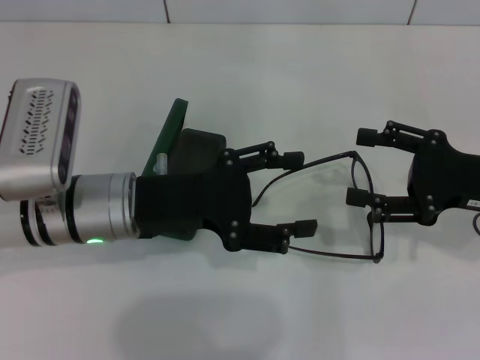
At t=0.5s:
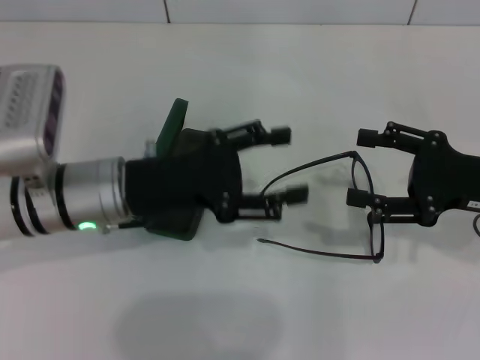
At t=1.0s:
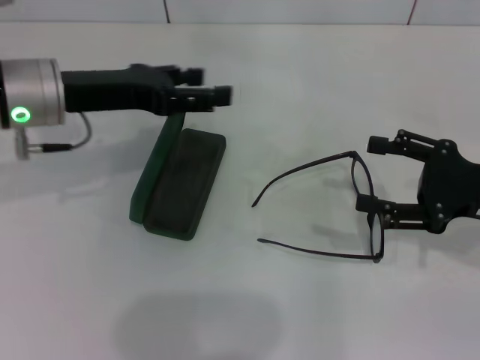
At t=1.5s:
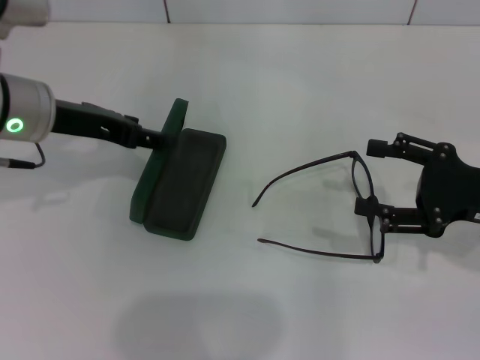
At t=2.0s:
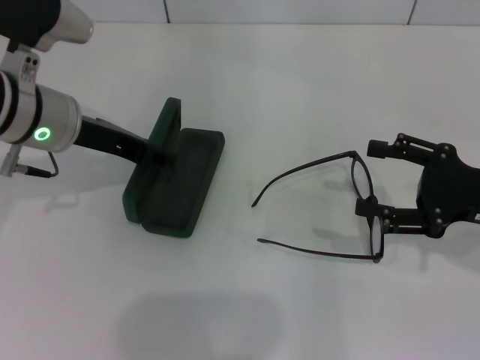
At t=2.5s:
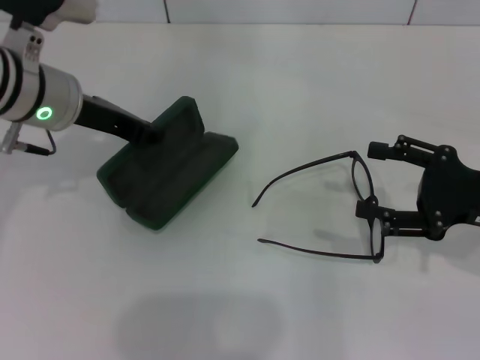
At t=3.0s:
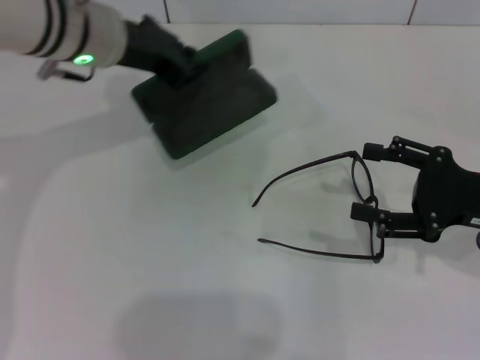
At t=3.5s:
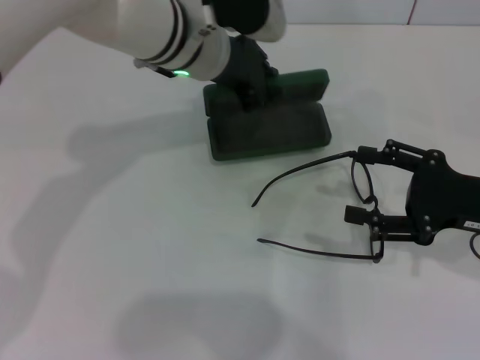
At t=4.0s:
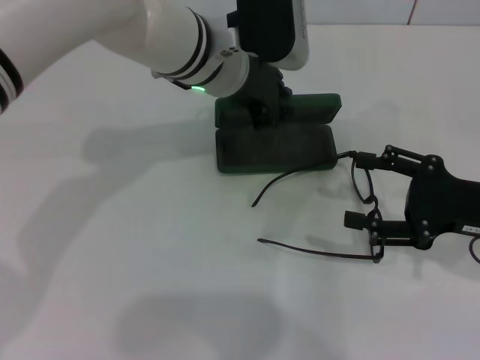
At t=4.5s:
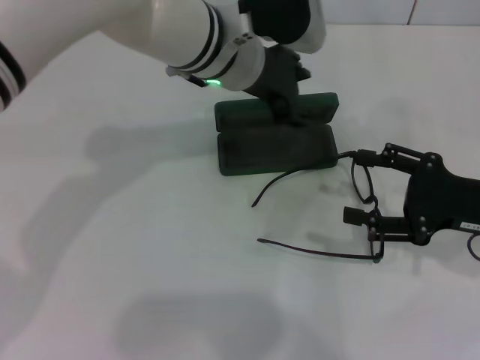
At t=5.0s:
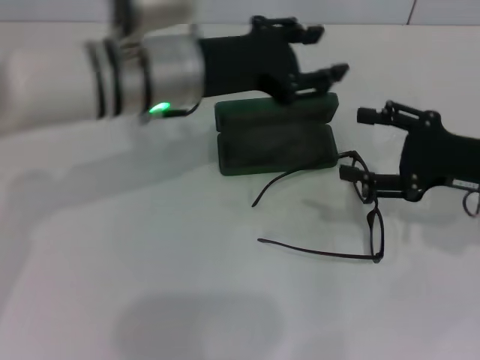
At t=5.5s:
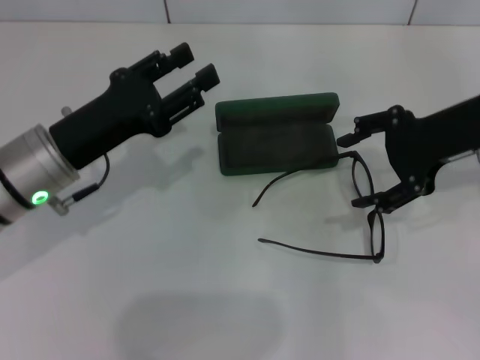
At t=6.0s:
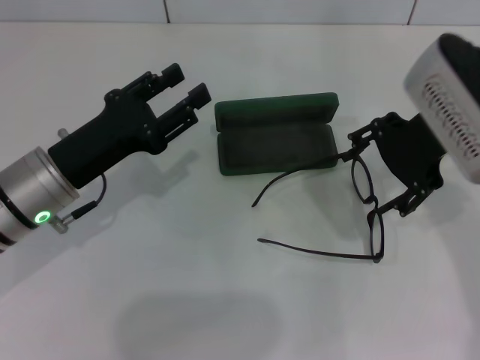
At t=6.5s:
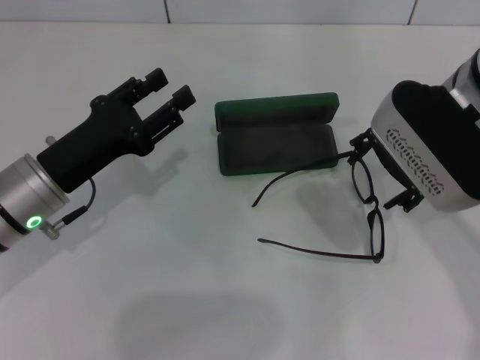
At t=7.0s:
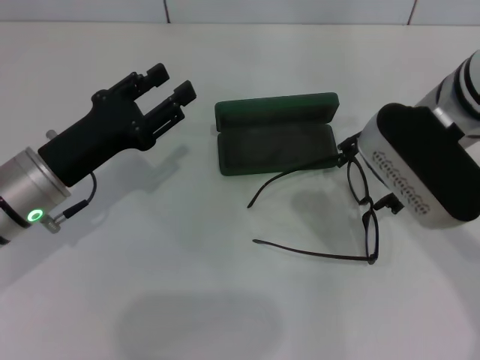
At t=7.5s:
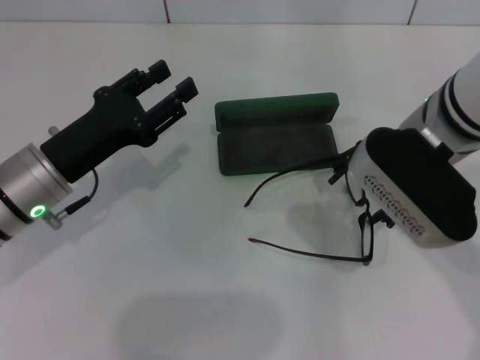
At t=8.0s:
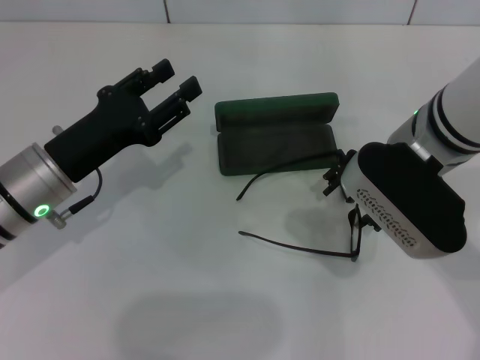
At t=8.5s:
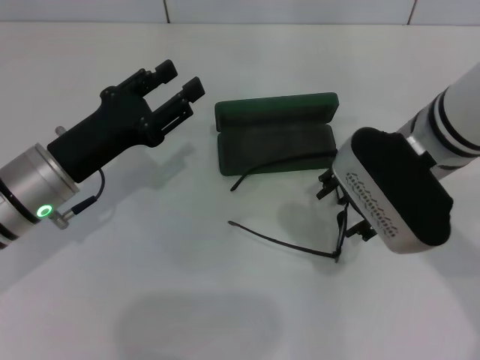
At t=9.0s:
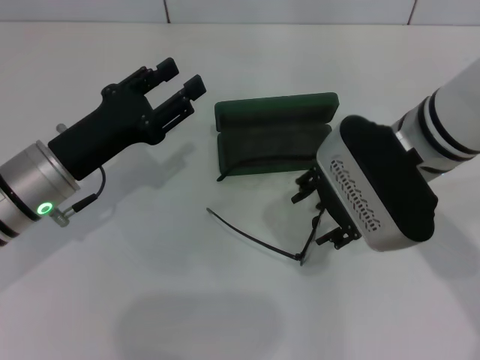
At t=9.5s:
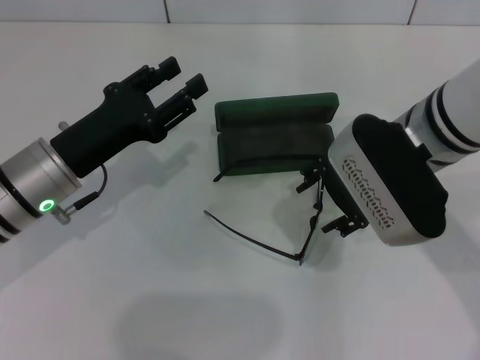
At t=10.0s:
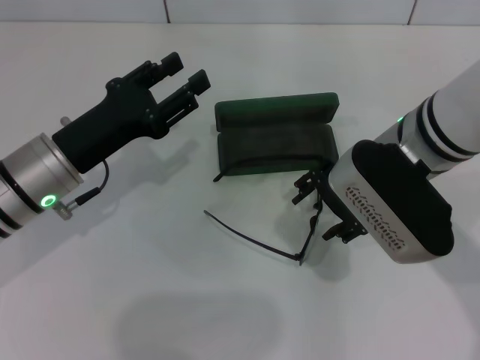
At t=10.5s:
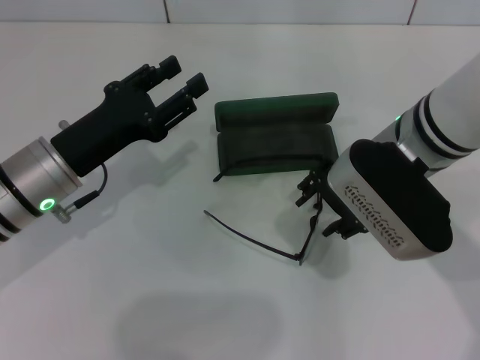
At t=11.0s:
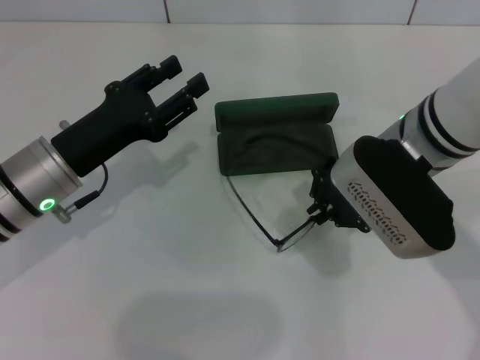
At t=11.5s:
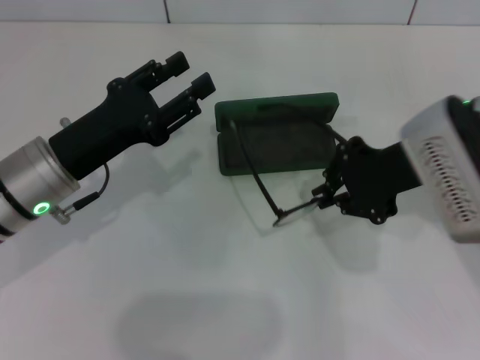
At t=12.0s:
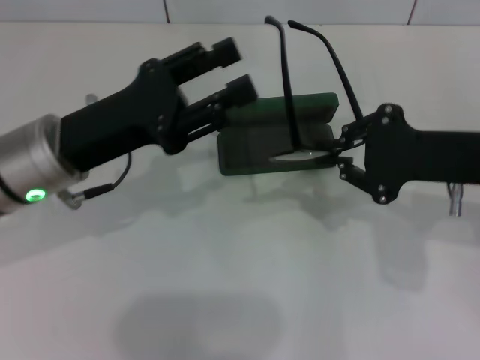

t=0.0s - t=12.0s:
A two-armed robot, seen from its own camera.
Step, t=0.0s - t=2.0s: Grab the glasses case with your left hand.
Step, t=3.0s - t=4.0s: Place the glasses case in the center of the table with your left hand.
Step, t=4.5s - t=10.5s: Grab the eyeglass frame with your right hand.
t=0.0s - t=2.0s: The left gripper moves forward and upward, some 10 cm.
t=2.0s - t=4.0s: The left gripper travels to the right by approximately 15 cm, and closes its fingers.
t=4.0s - t=6.0s: The left gripper is displaced to the left, backward and downward by some 25 cm, and opens its fingers, while the right gripper goes about 20 cm upward, to the left and forward.
t=6.0s - t=8.0s: The right gripper changes place by about 5 cm.
t=8.0s - t=10.0s: The grippers stay close to where they were, moving slightly.
t=10.0s - t=12.0s: The right gripper is displaced to the right by approximately 10 cm, and closes its fingers.

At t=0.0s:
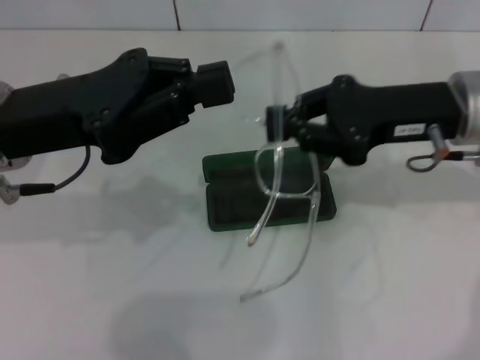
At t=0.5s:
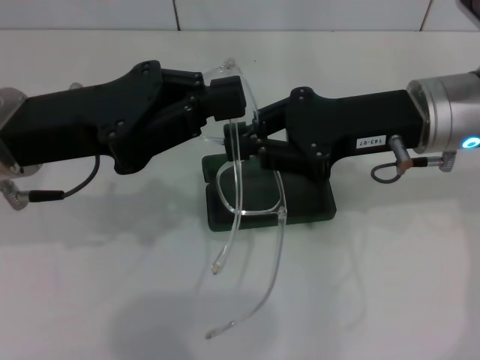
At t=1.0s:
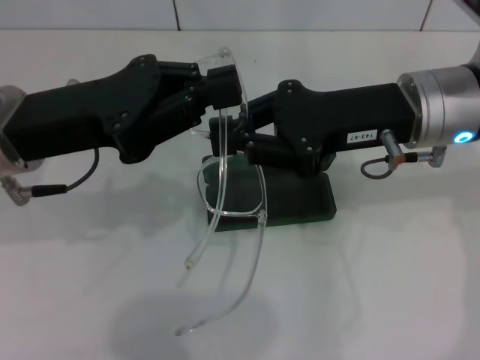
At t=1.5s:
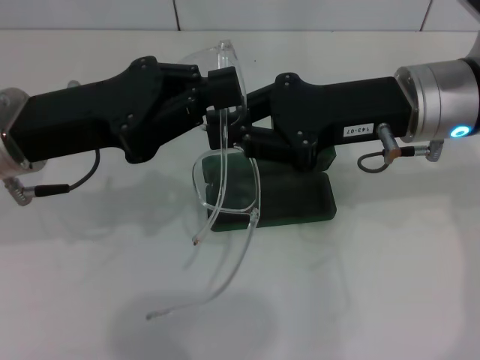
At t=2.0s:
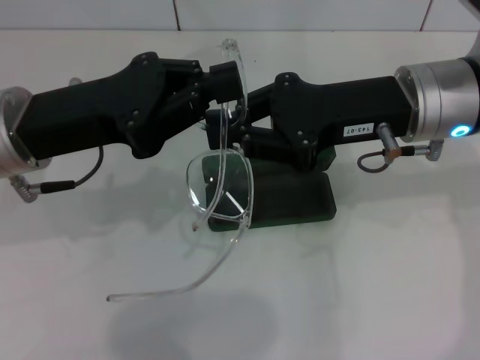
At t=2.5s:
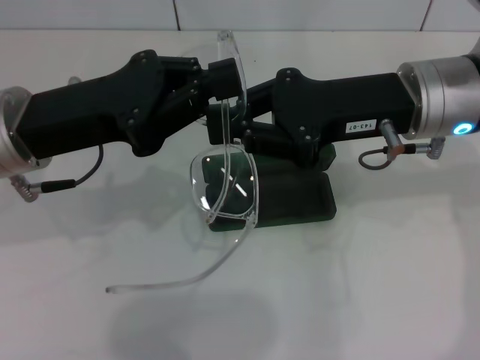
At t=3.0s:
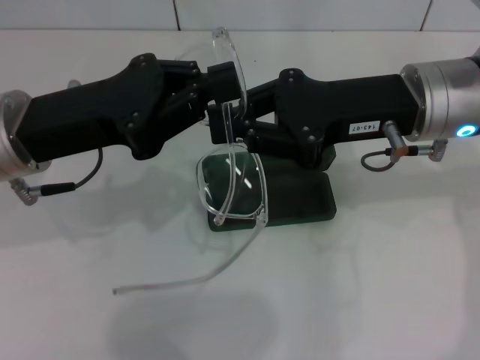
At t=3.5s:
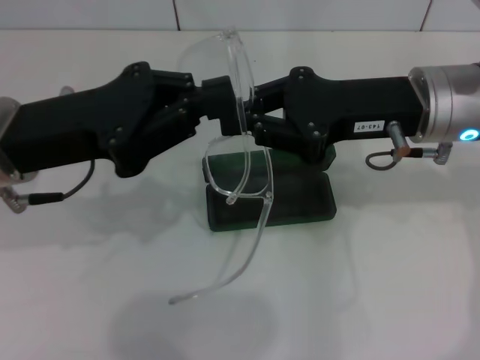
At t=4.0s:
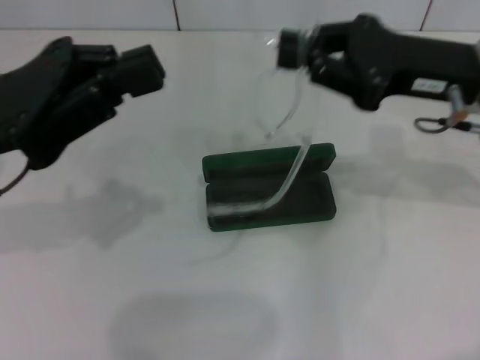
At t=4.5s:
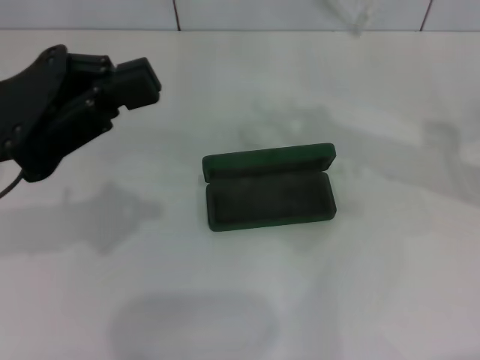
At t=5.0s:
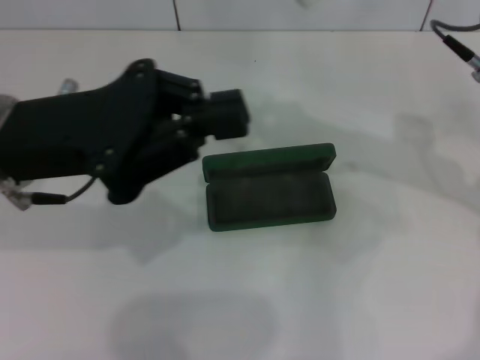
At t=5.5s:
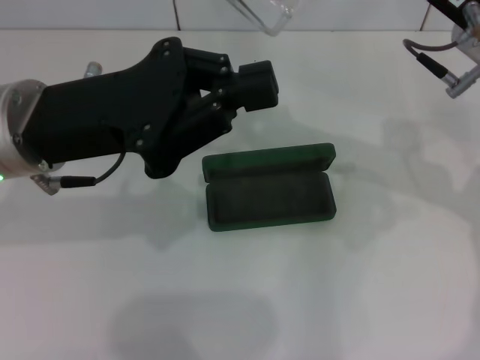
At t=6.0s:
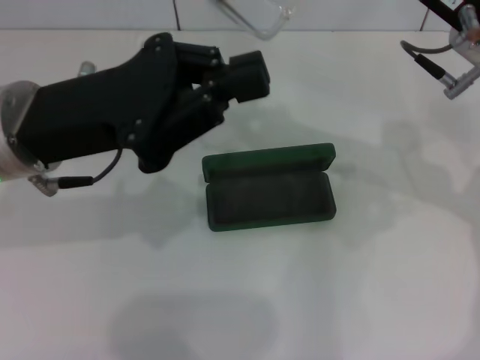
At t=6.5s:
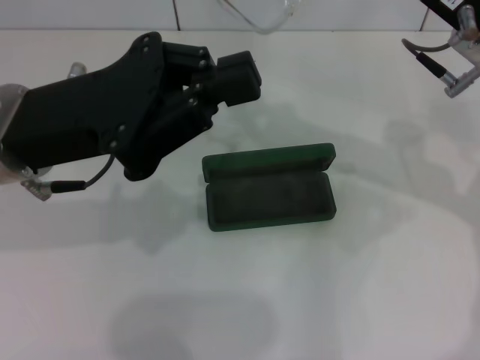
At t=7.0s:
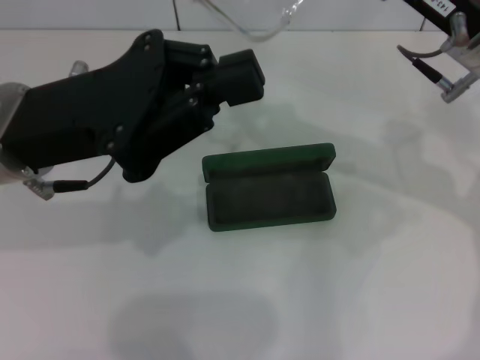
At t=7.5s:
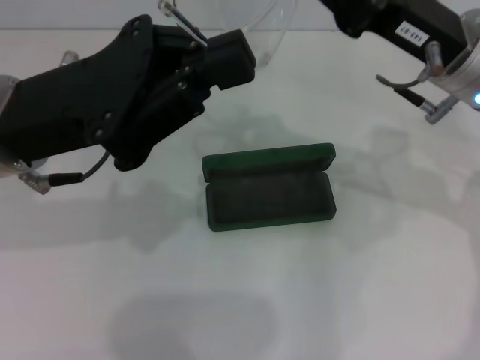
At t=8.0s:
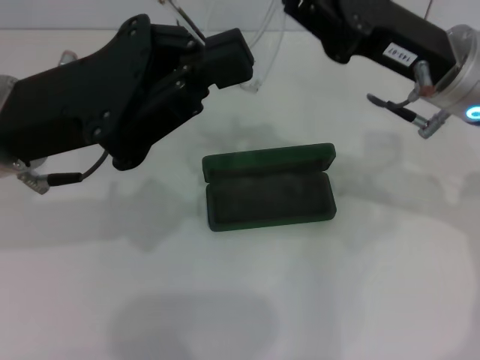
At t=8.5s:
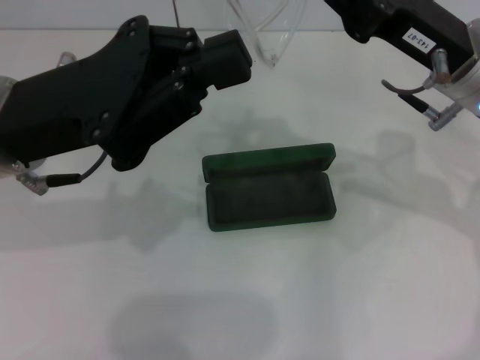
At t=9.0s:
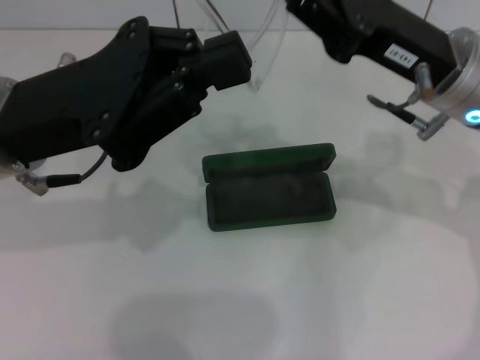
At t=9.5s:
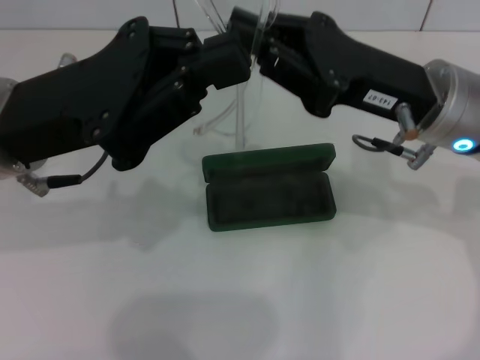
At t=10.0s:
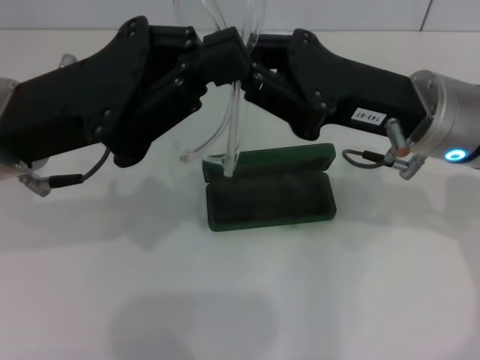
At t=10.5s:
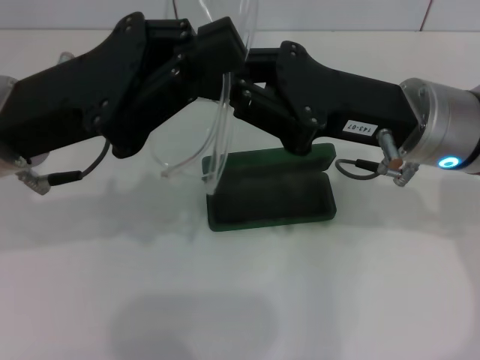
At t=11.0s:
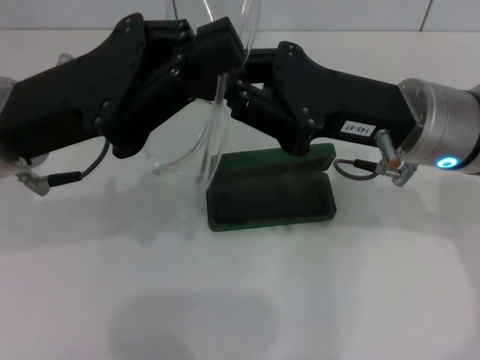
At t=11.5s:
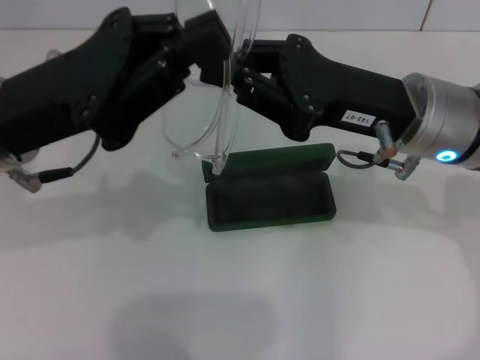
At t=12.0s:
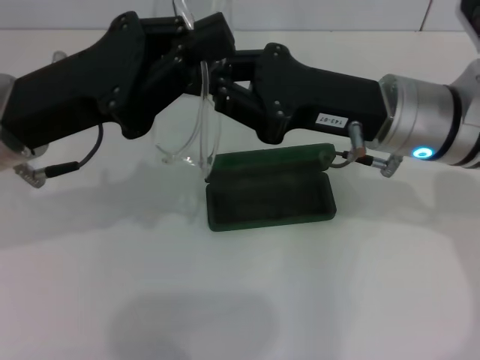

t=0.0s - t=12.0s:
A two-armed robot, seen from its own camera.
Step, t=0.0s - t=11.5s: Fold the frame with your left hand.
t=0.0s - t=2.0s: The grippers move only a little.
t=2.0s - t=4.0s: The right gripper moves to the right, approximately 5 cm; the left gripper shifts by roughly 5 cm.
t=4.0s - t=6.0s: The left gripper shifts roughly 5 cm to the right.
t=6.0s - t=10.0s: There are only small adjustments of the grippers.
t=10.0s - t=12.0s: The grippers stay close to where they were, moving slightly.

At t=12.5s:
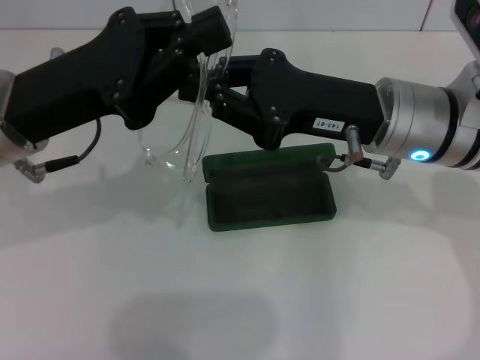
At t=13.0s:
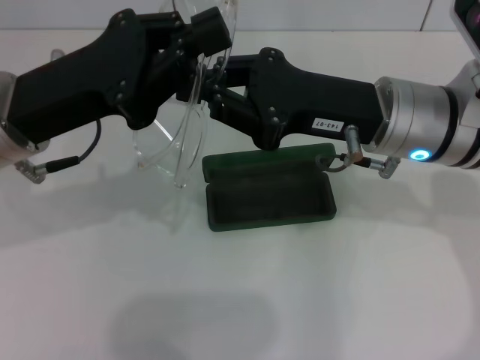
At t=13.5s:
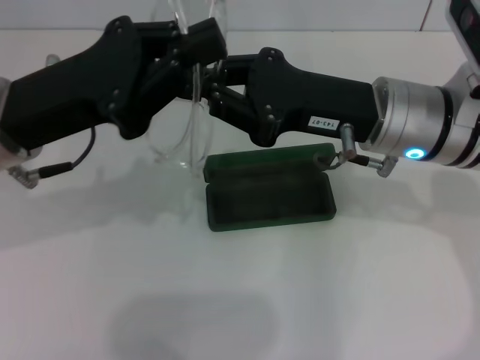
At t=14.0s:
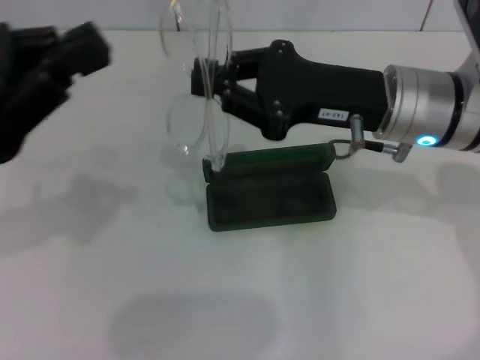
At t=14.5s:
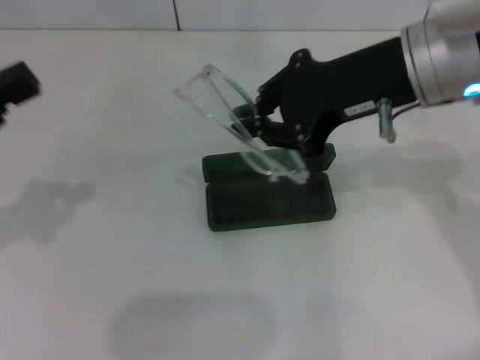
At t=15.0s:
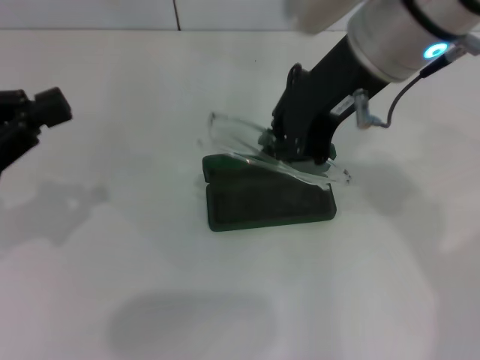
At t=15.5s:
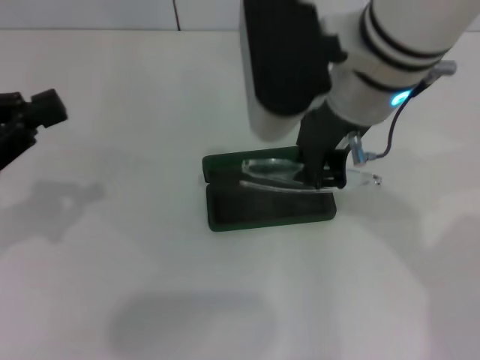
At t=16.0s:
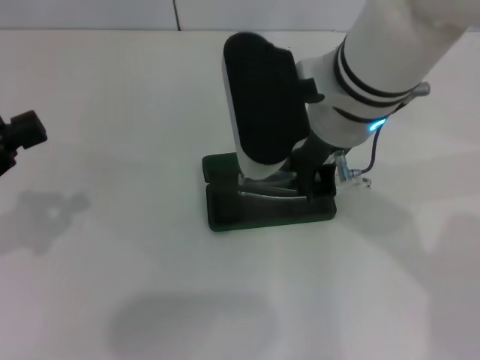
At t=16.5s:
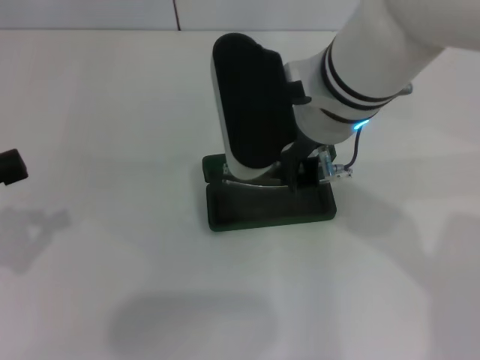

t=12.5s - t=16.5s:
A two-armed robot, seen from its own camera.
t=12.5s - t=14.5s: The right gripper heads upward, covering some 10 cm. The left gripper moves to the left and backward, approximately 15 cm.
t=14.5s - t=16.5s: The right gripper shifts roughly 10 cm to the left.
